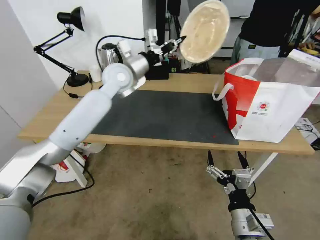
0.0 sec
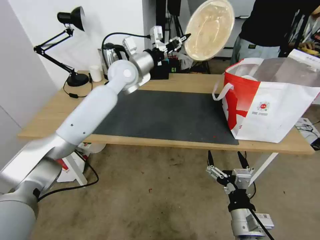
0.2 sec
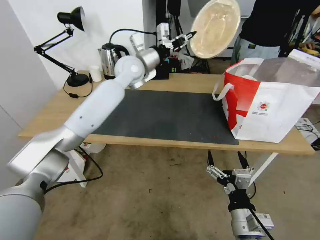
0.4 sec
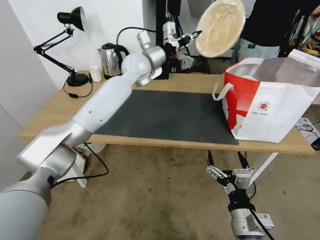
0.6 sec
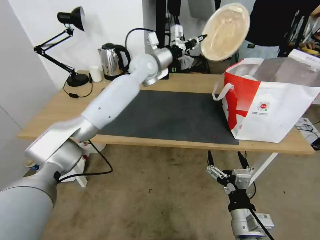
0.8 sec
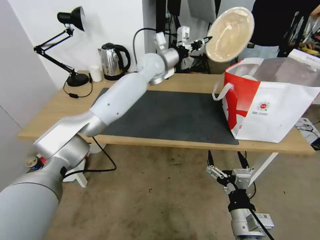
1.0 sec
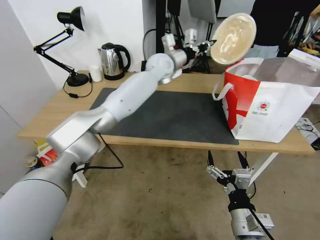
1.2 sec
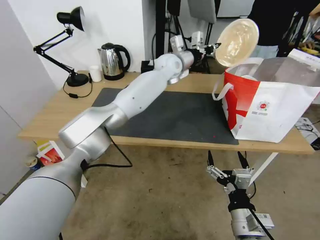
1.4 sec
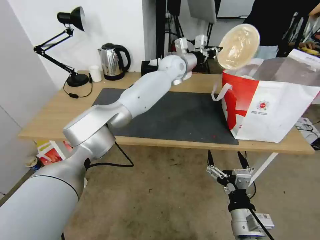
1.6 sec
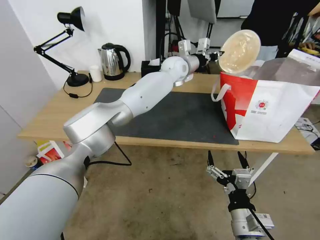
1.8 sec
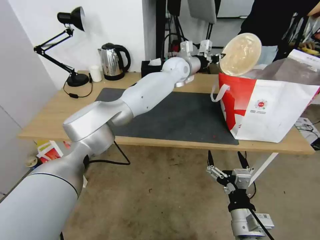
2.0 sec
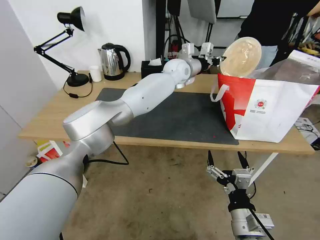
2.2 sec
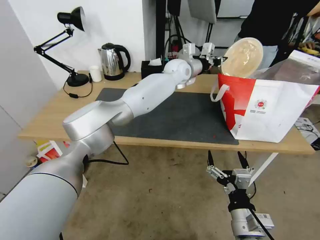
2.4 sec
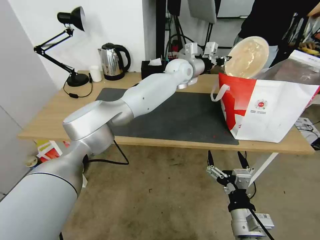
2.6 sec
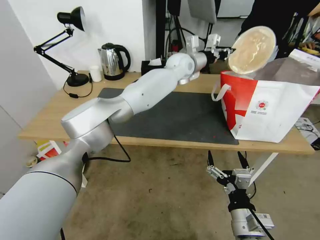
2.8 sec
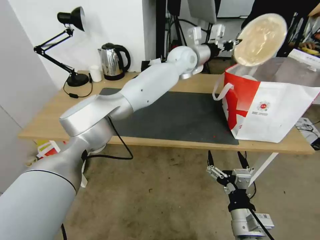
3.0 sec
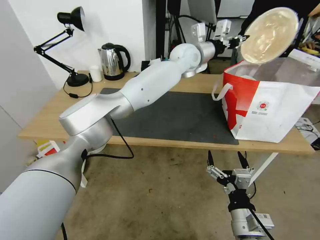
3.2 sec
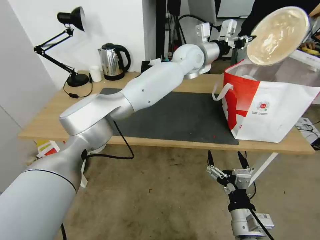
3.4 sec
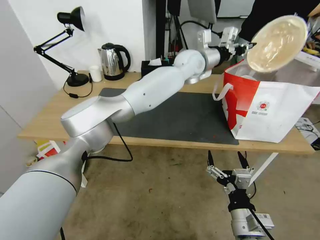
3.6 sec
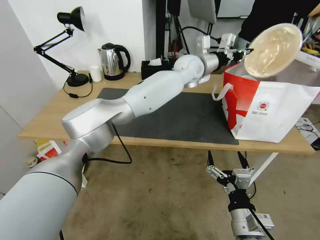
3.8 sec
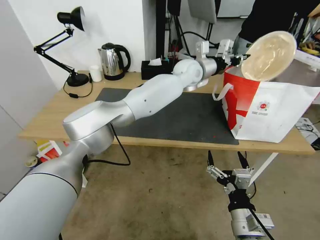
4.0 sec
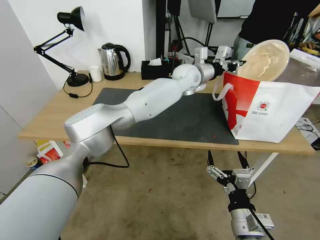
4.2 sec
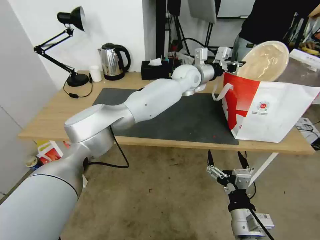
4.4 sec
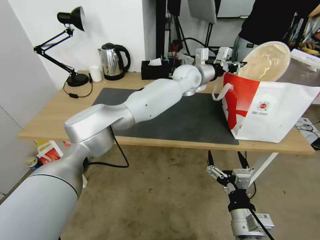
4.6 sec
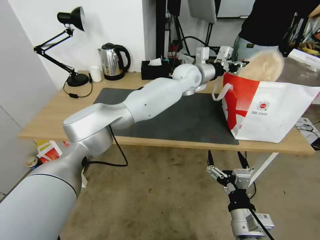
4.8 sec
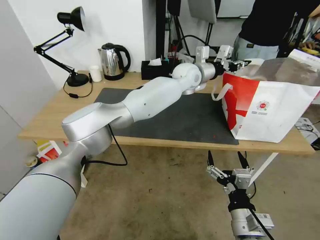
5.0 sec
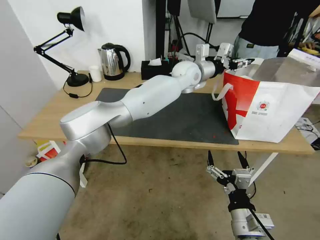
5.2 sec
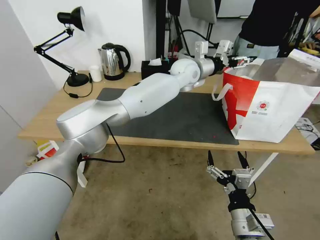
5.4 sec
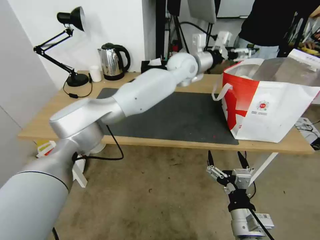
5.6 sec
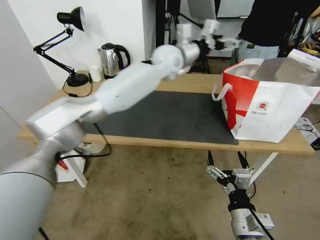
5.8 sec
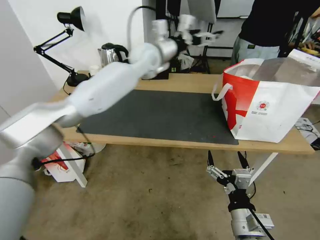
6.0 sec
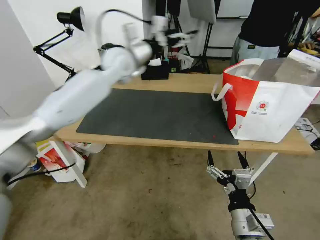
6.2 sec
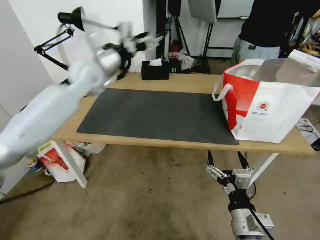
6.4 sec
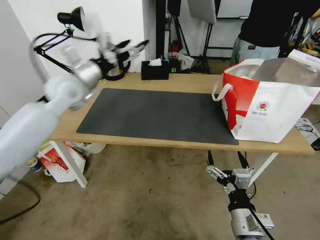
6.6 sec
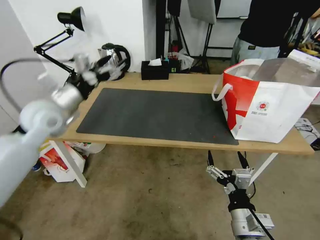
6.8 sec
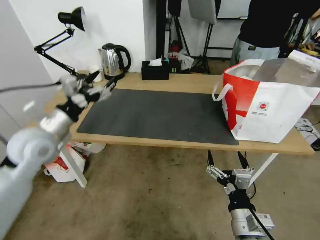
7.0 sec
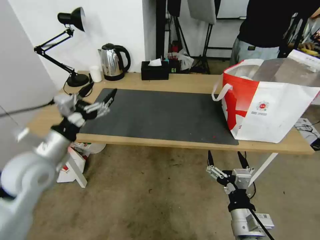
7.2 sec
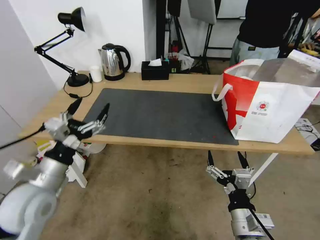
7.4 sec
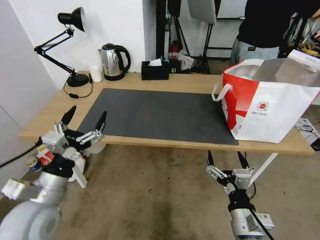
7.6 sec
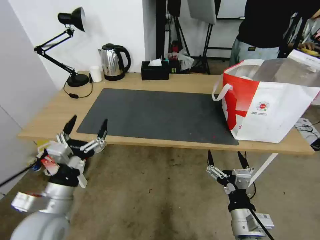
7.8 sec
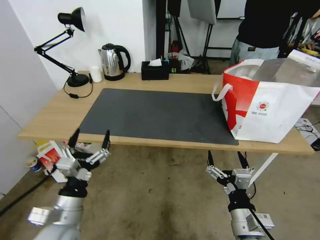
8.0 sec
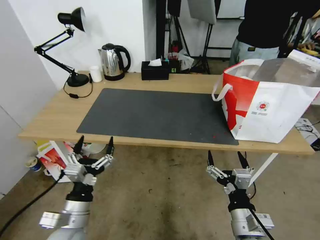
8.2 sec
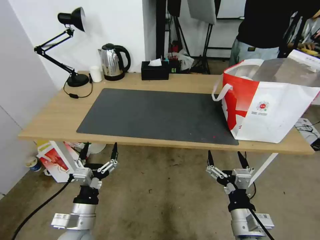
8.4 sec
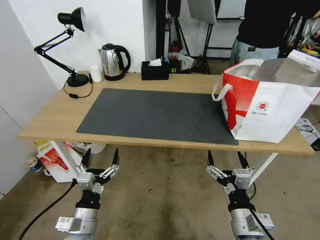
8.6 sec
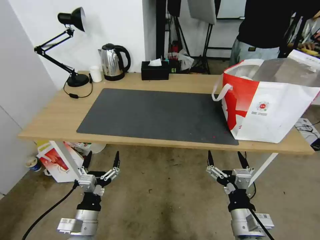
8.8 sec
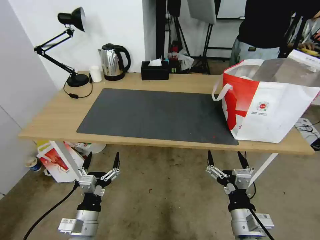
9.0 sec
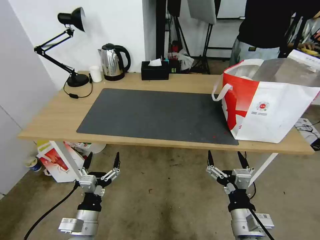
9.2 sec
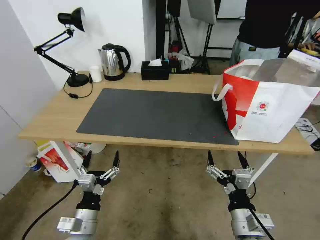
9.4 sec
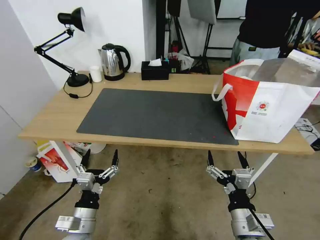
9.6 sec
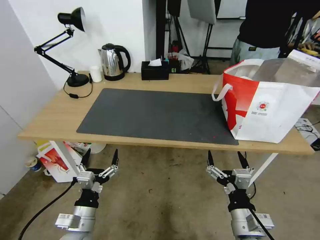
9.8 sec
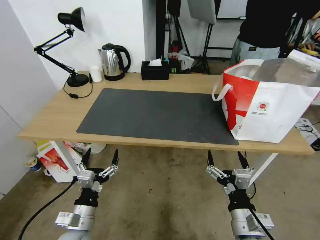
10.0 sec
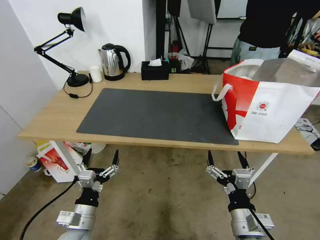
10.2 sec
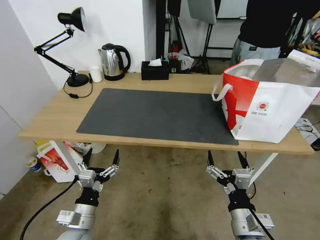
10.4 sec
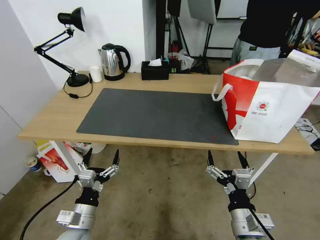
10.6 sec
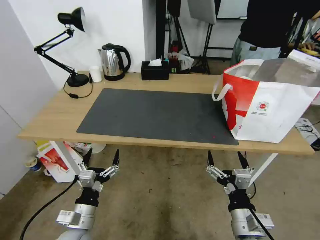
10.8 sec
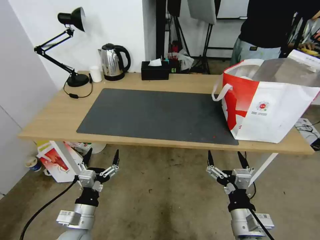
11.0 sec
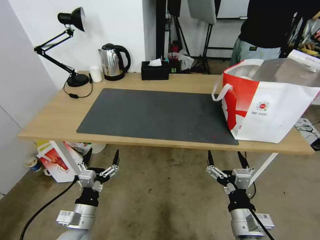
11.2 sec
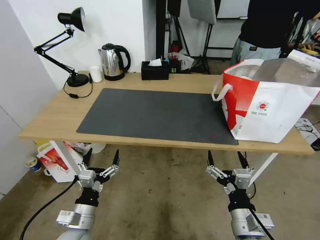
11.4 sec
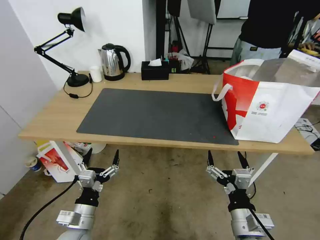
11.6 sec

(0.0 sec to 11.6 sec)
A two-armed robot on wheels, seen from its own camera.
Task of the whole recording: Pick up the trash from the table and place it into the takeout bag.
0.0 sec - 1.4 sec: The left gripper goes roughly 20 cm to the right and forward.
1.4 sec - 2.8 sec: The grippers move only a little.
2.8 sec - 4.4 sec: There are only small adjustments of the grippers.
4.4 sec - 5.8 sec: The left gripper is displaced upward and to the left by some 10 cm, and opens its fingers.
5.8 sec - 7.2 sec: The left gripper travels to the left and backward by roughly 40 cm.
7.2 sec - 8.8 sec: The left gripper heads downward, backward and to the right, covering approximately 30 cm.
8.8 sec - 10.2 sec: The grippers make only small movements.
10.2 sec - 11.6 sec: Both grippers stay about where they are.
